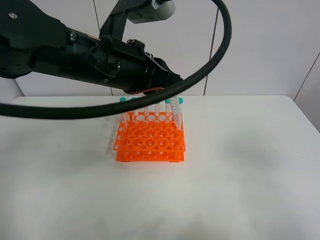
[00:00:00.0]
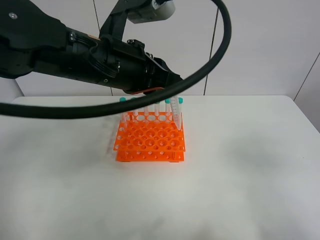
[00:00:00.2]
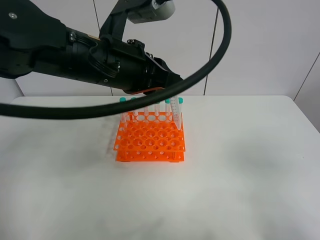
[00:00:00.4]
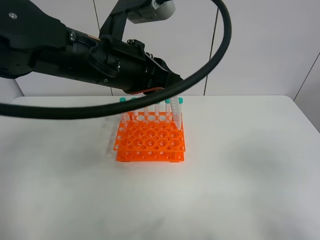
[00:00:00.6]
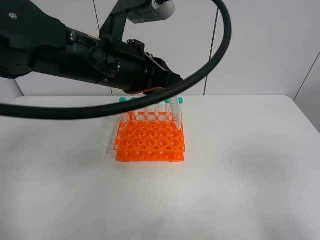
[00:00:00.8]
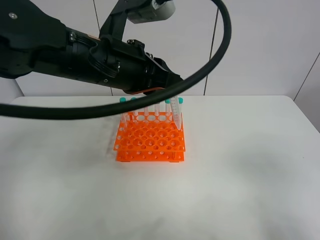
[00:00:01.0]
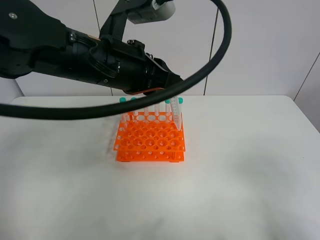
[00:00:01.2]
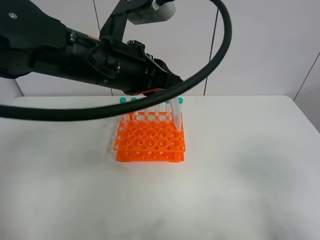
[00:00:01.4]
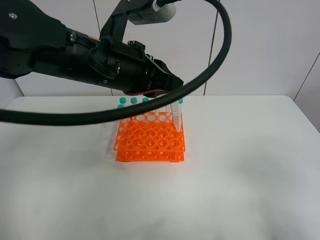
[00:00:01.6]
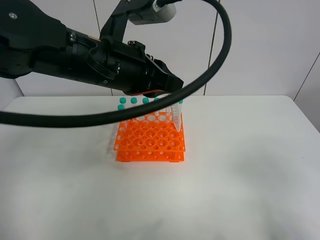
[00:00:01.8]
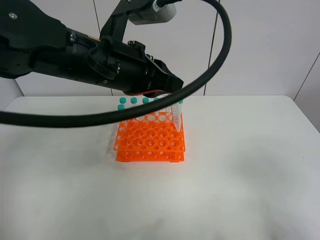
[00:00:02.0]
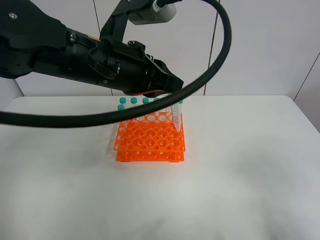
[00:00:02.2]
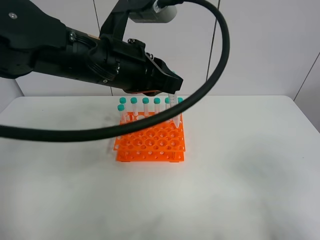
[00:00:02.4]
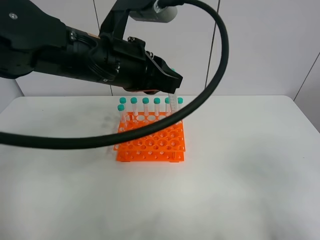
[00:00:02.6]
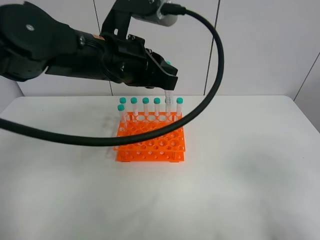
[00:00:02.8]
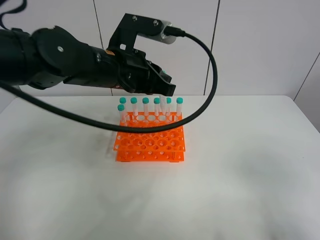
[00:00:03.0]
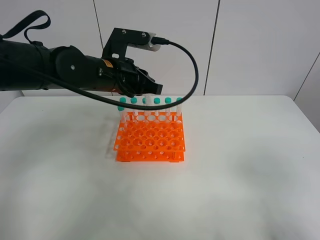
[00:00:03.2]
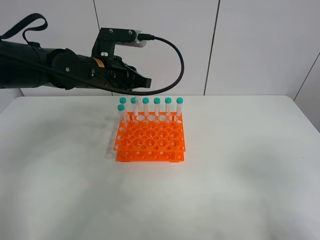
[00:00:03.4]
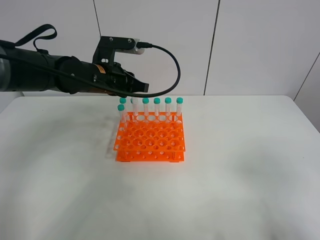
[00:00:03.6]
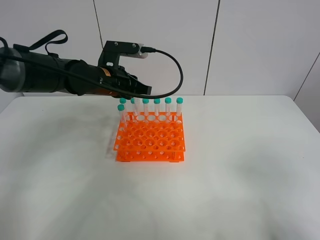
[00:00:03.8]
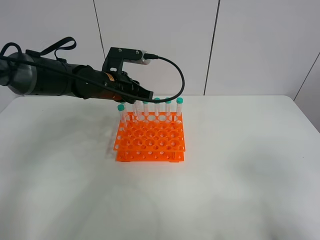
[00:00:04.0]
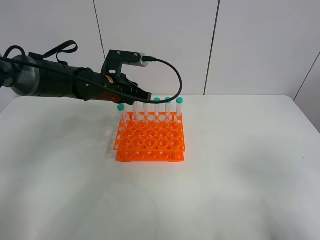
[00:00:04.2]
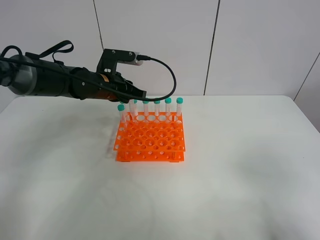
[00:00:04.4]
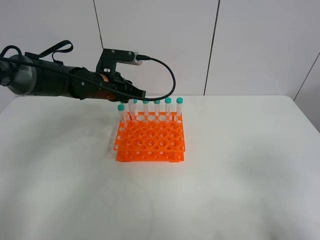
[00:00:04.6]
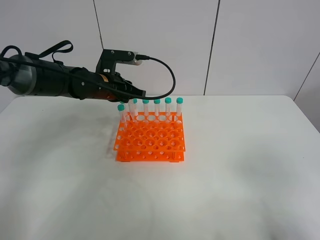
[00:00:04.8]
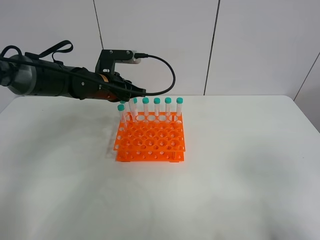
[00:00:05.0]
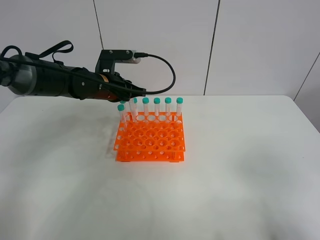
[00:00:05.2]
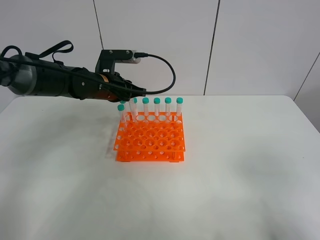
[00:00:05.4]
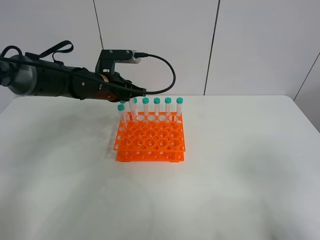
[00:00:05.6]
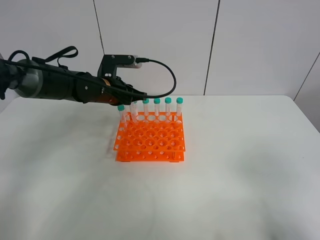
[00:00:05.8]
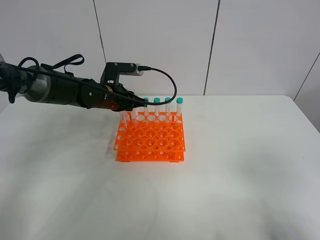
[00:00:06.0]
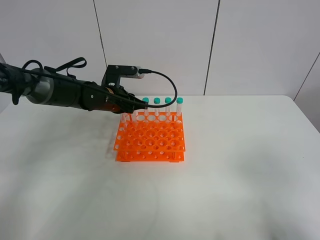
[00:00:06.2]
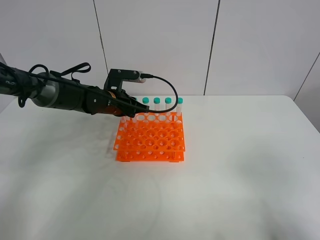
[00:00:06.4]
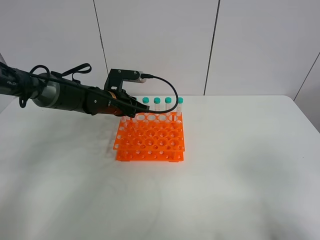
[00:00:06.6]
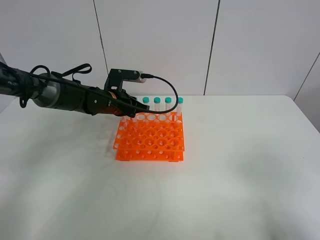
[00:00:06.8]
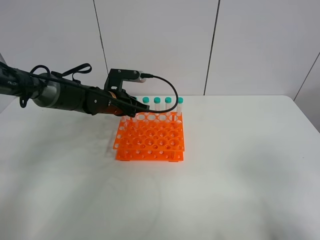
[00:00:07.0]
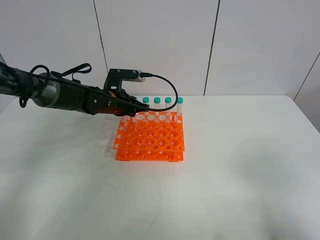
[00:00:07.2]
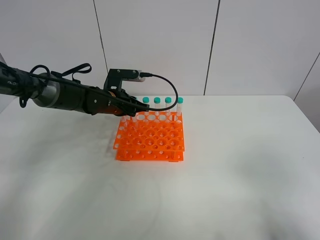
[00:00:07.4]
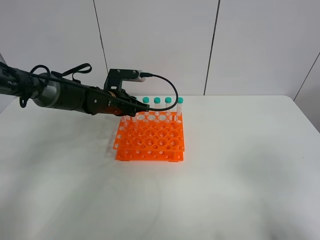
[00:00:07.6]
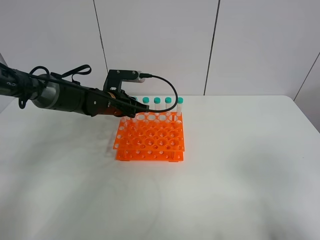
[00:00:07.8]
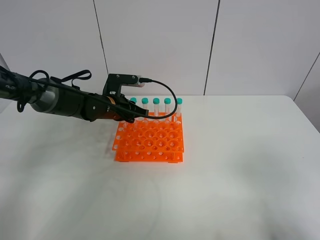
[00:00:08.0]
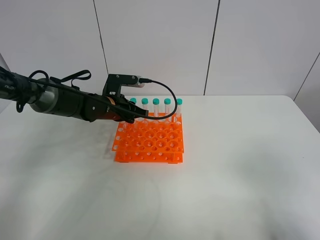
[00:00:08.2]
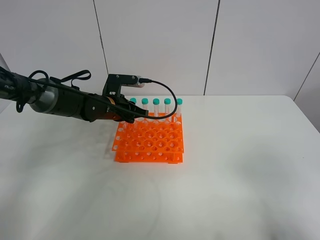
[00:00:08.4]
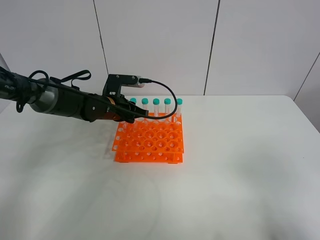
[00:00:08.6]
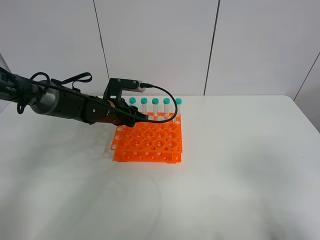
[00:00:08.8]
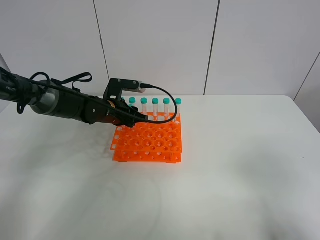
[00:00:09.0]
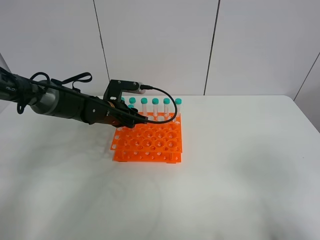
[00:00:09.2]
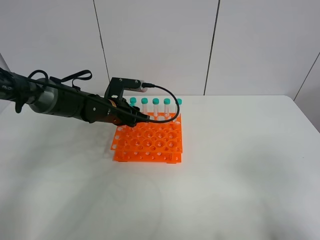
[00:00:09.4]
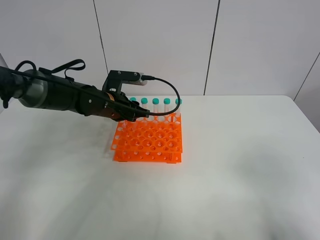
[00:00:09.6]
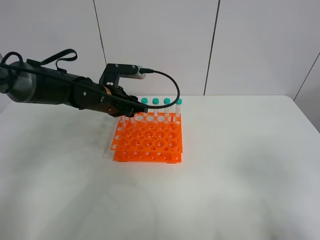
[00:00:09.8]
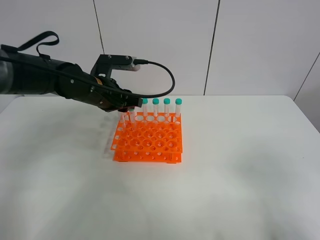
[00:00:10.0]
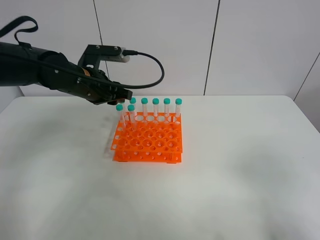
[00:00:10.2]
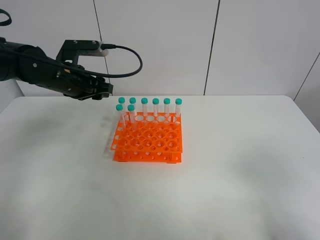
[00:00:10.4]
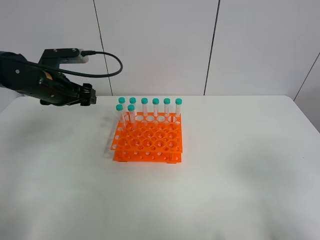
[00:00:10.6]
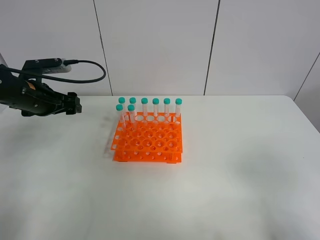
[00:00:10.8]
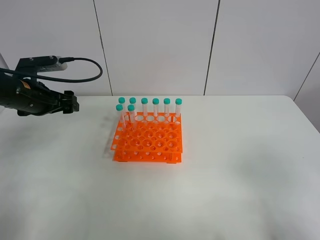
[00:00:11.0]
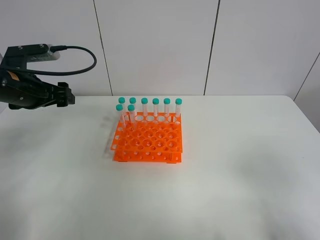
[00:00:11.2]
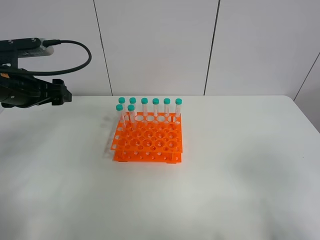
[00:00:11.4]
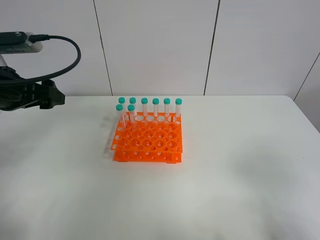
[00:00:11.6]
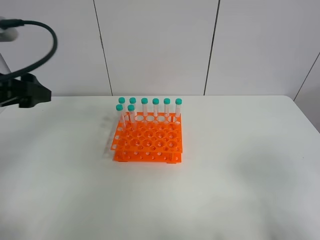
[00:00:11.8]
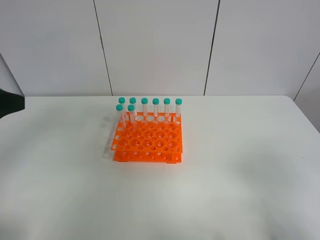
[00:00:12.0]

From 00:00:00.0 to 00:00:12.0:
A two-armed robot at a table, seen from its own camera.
Task of the whole recording: Put the test tube on the table back onto the test tube rack.
Step, from 00:00:00.0 to 00:00:08.8: Place the test tube on the test tube rack with the left gripper.
From 00:00:00.0 to 00:00:01.6: The right gripper moves approximately 5 cm.
From 00:00:01.6 to 00:00:03.0: The left gripper travels forward by about 5 cm.
From 00:00:03.0 to 00:00:04.4: The left gripper shifts some 15 cm forward, downward and to the left.
From 00:00:04.4 to 00:00:07.6: The grippers move only a little.
From 00:00:07.6 to 00:00:09.0: The grippers stay close to where they were, moving slightly.
From 00:00:09.0 to 00:00:10.4: The left gripper shifts some 15 cm upward and to the left, and opens.
From 00:00:10.4 to 00:00:12.0: The left gripper goes approximately 25 cm backward and upward.

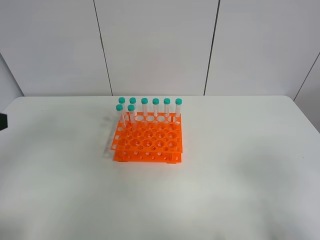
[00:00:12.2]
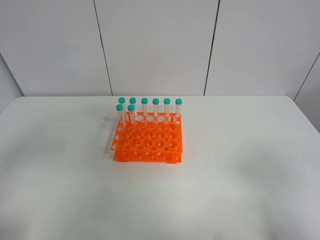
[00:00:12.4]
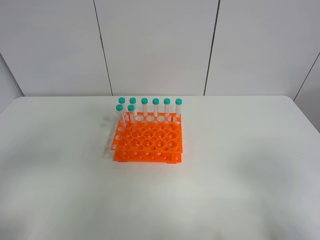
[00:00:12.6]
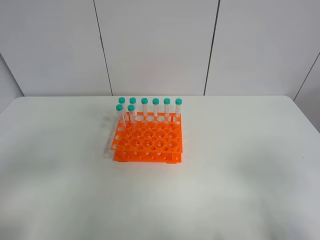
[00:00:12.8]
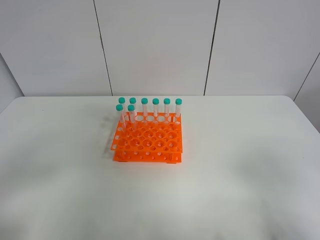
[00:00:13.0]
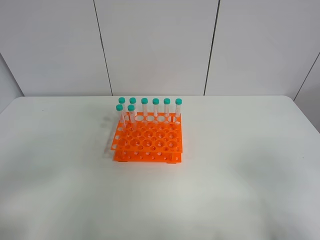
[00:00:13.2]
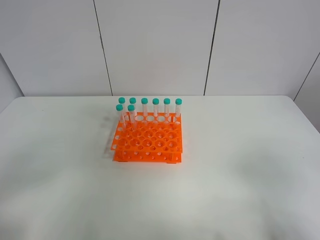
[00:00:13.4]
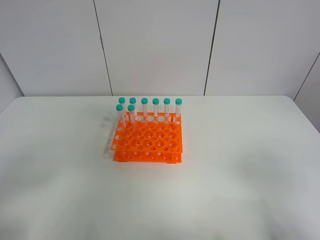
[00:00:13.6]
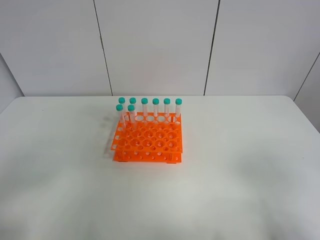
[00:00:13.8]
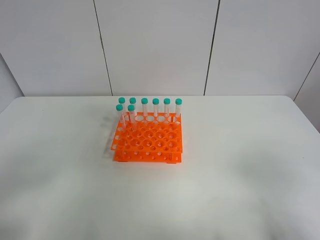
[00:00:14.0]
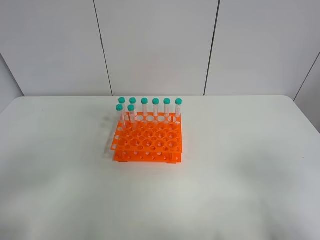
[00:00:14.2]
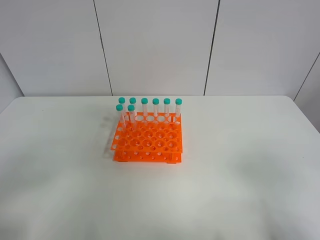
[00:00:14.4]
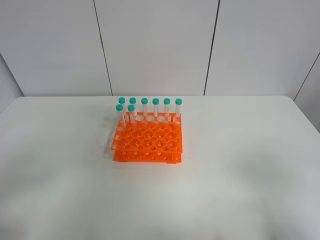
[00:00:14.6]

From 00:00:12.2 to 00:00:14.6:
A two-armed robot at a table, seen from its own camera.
Task of the whole recording: Put the test tube on the table back onto the test tube rack.
From 00:00:13.4 to 00:00:14.6: Both grippers stay put.
